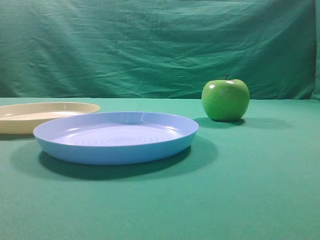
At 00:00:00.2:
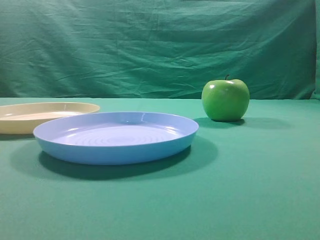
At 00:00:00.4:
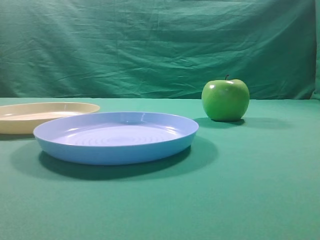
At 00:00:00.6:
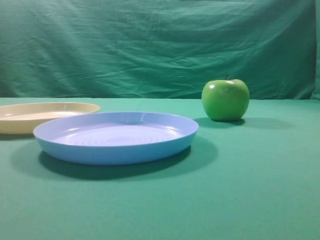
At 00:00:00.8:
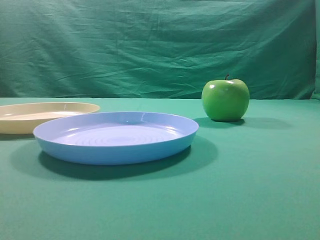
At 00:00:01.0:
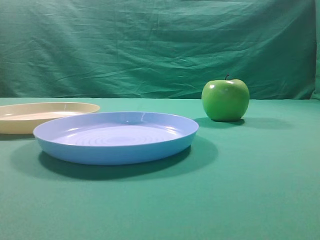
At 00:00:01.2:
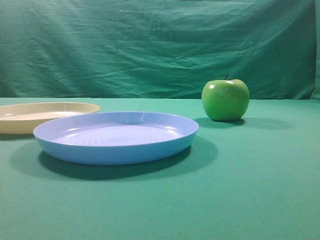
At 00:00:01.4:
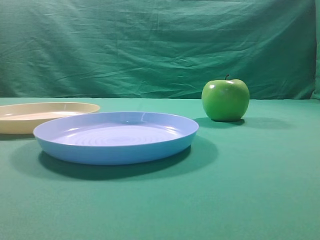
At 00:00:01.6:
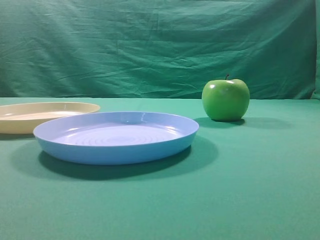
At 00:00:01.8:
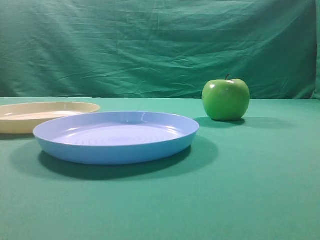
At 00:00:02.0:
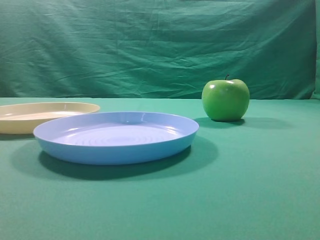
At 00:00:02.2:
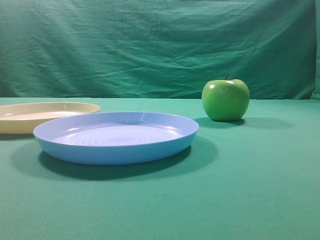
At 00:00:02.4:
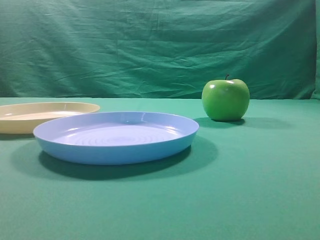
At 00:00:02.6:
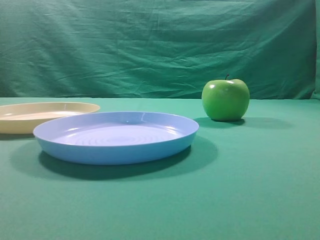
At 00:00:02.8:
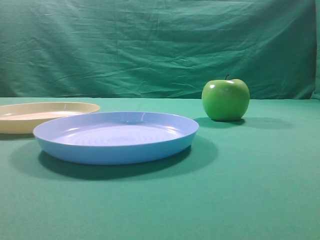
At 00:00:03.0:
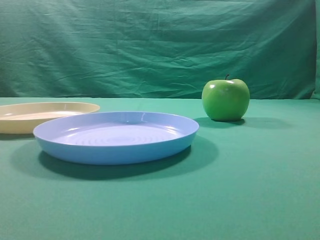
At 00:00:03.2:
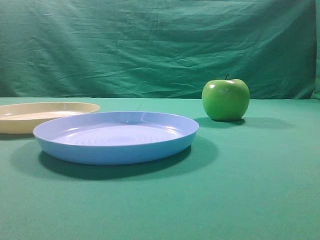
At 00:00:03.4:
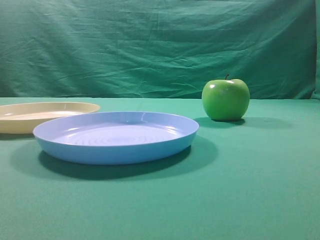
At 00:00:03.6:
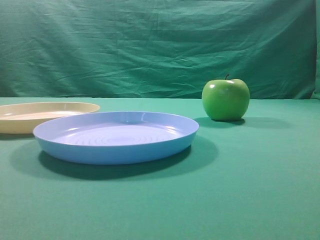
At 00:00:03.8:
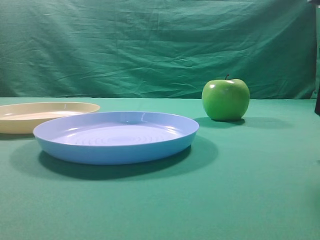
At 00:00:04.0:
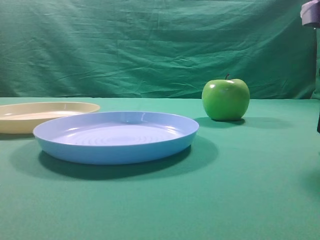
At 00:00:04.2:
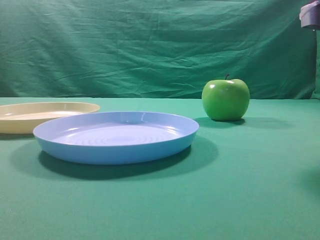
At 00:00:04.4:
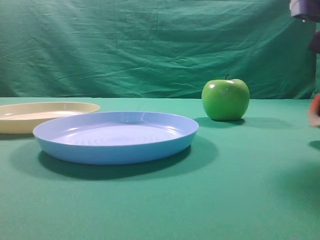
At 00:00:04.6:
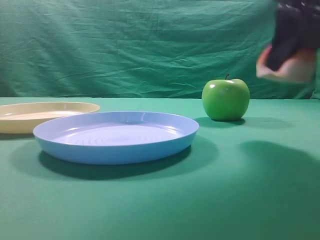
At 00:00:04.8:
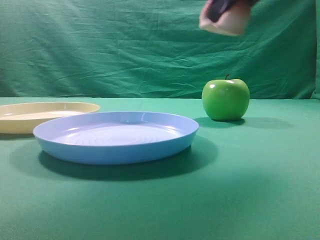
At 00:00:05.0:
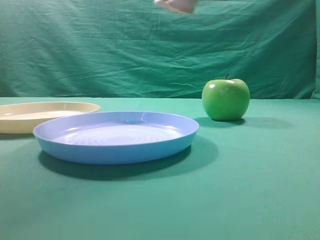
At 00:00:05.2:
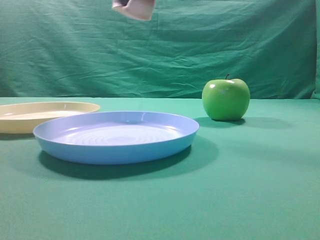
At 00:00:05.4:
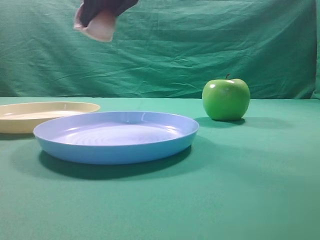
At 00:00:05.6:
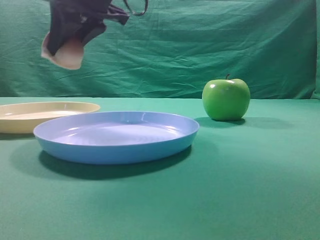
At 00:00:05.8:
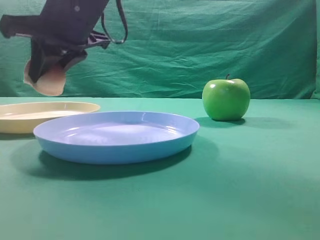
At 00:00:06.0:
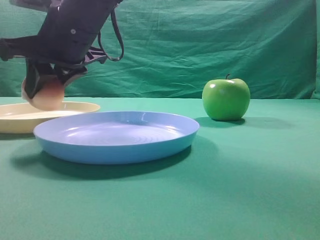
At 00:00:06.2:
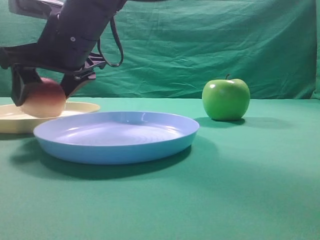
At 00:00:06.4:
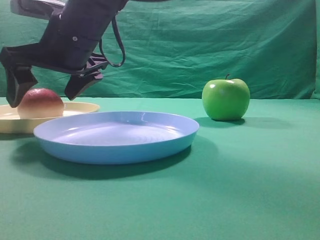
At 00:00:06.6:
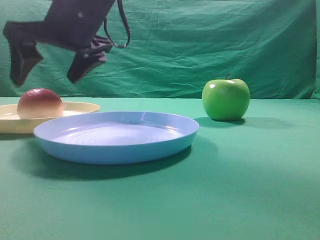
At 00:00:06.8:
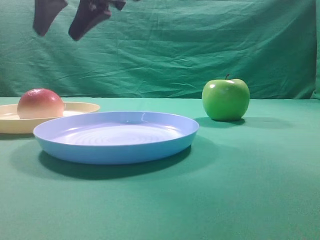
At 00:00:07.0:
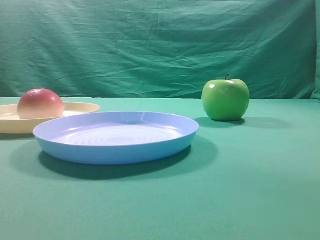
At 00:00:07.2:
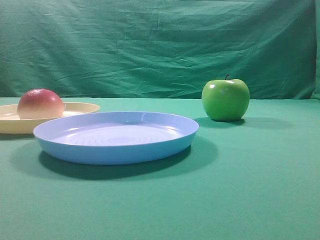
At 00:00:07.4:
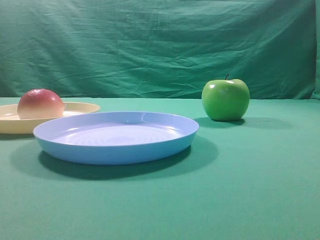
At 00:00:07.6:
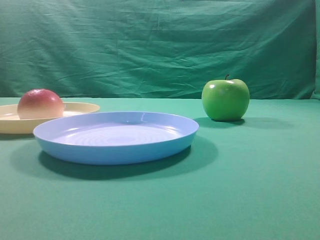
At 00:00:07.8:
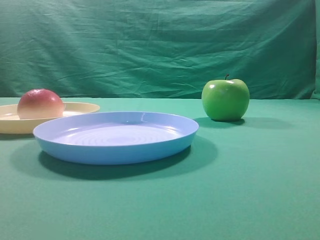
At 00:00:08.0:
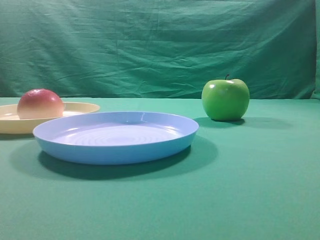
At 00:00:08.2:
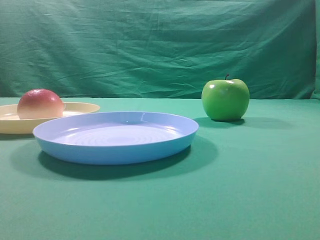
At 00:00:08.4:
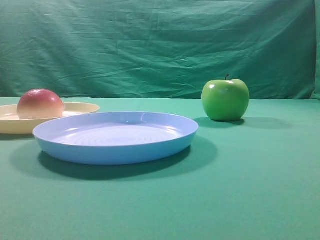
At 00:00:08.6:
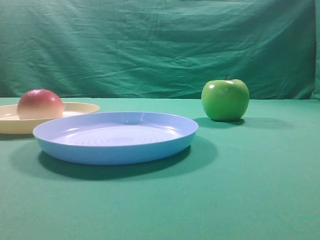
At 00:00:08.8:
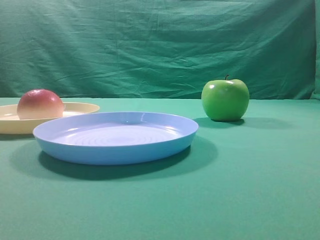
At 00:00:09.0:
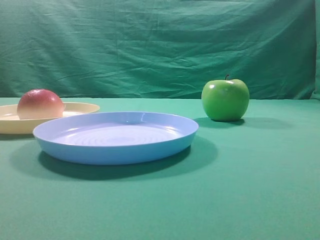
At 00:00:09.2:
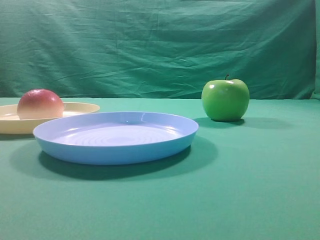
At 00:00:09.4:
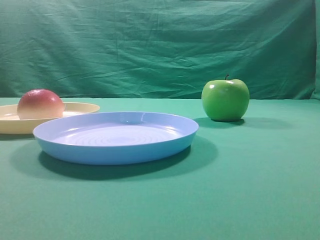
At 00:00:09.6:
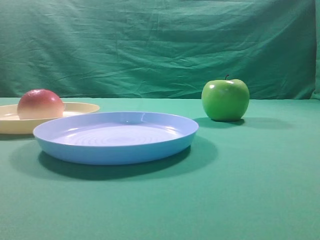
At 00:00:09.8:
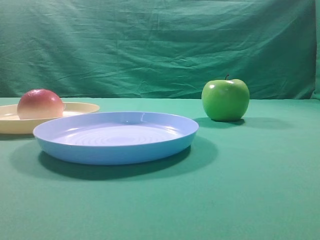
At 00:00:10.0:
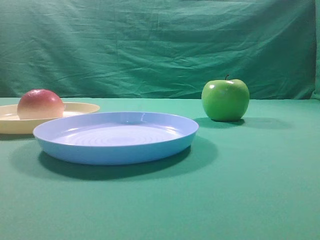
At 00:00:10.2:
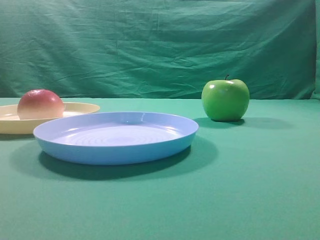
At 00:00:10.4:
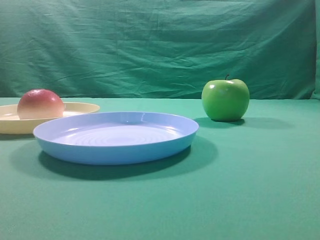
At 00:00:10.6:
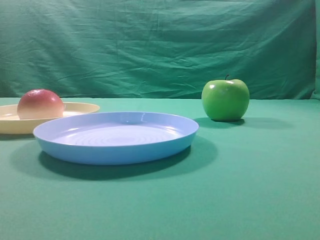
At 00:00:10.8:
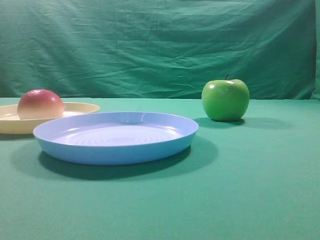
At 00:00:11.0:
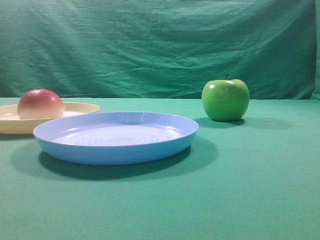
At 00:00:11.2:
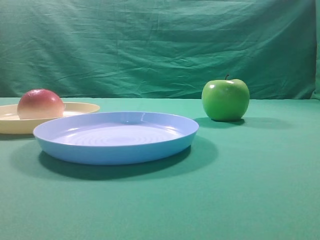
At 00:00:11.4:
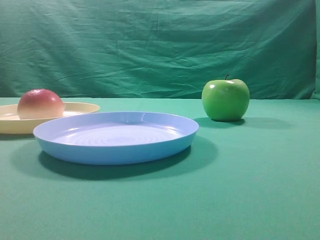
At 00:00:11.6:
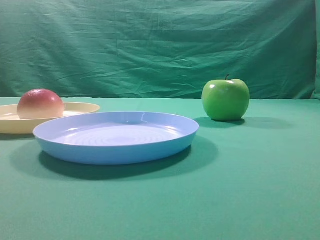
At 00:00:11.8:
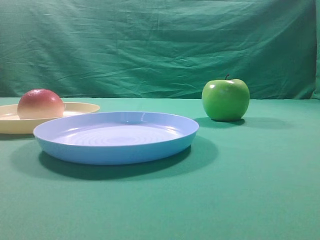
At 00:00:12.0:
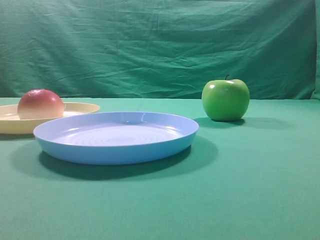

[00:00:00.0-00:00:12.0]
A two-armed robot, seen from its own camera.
Step, 00:00:04.6 to 00:00:06.6: Place the picked object on the yellow plate.

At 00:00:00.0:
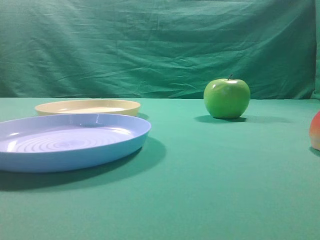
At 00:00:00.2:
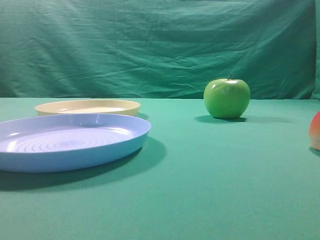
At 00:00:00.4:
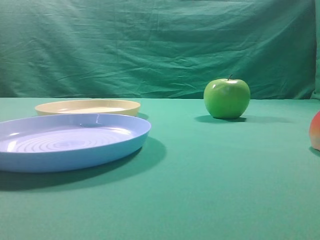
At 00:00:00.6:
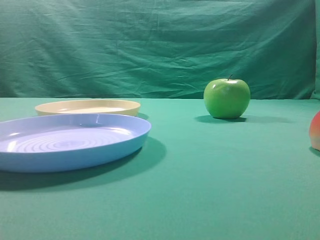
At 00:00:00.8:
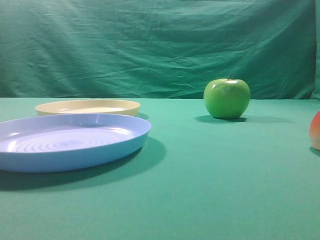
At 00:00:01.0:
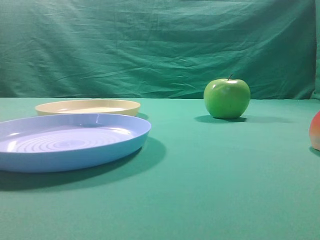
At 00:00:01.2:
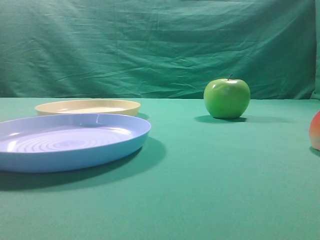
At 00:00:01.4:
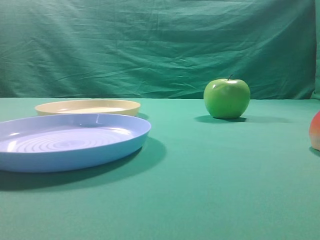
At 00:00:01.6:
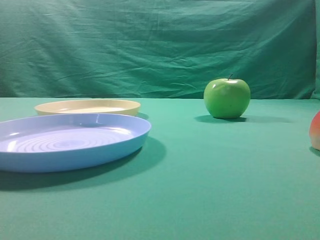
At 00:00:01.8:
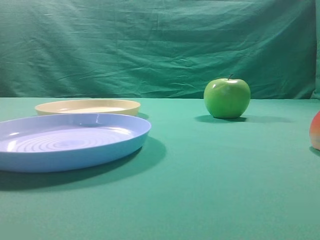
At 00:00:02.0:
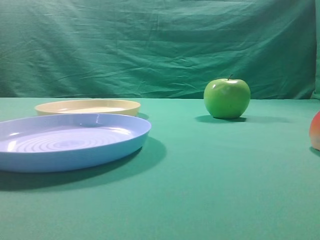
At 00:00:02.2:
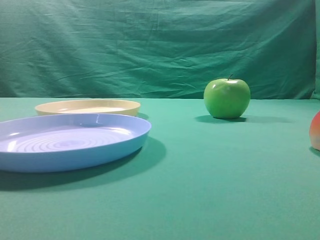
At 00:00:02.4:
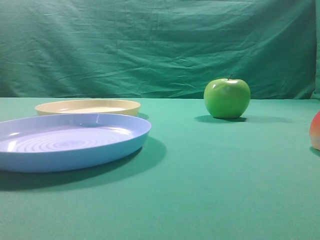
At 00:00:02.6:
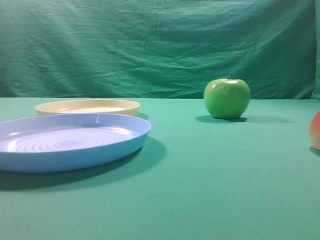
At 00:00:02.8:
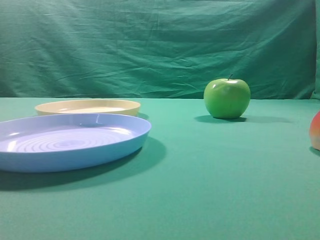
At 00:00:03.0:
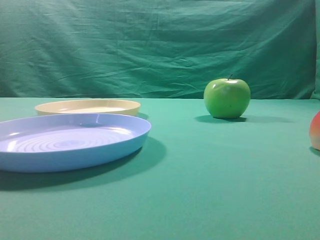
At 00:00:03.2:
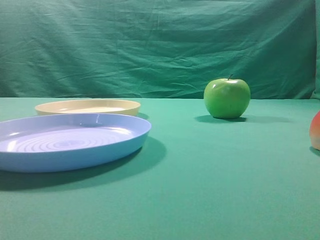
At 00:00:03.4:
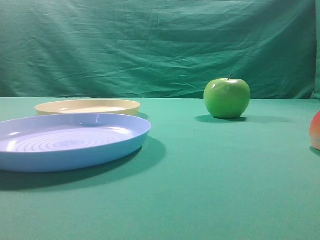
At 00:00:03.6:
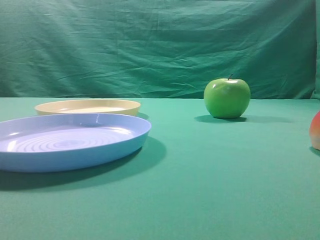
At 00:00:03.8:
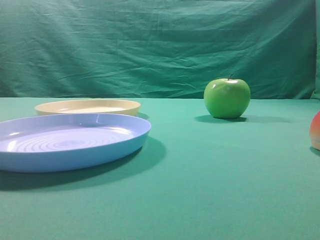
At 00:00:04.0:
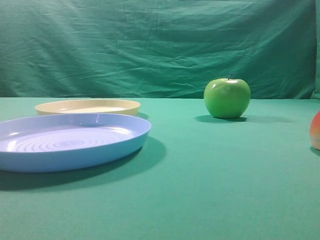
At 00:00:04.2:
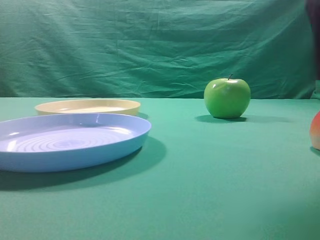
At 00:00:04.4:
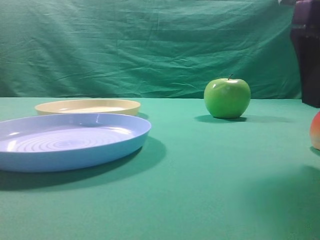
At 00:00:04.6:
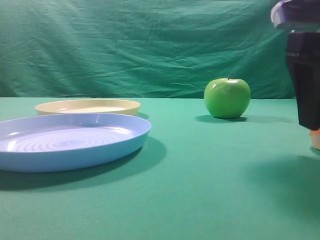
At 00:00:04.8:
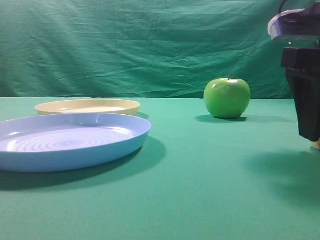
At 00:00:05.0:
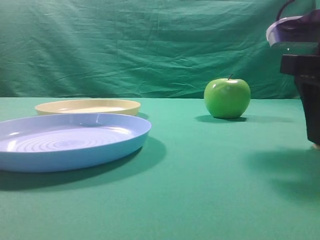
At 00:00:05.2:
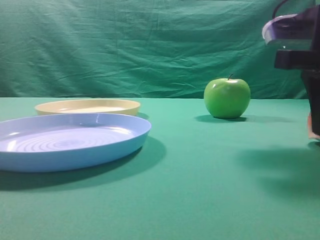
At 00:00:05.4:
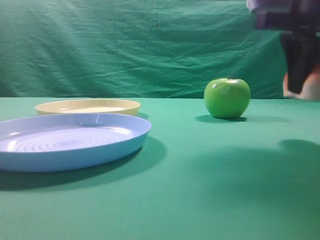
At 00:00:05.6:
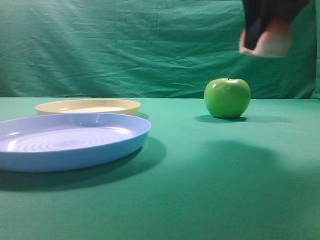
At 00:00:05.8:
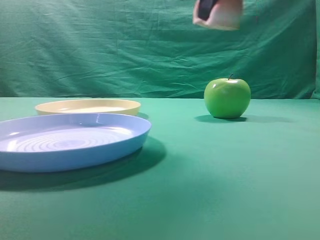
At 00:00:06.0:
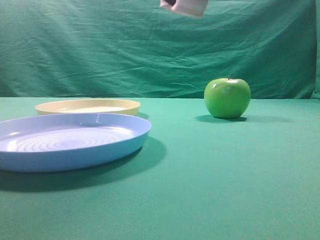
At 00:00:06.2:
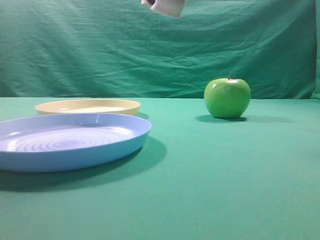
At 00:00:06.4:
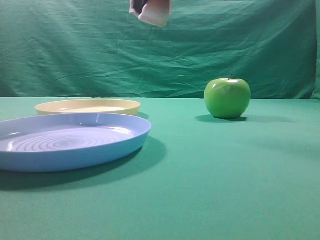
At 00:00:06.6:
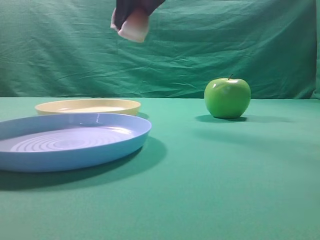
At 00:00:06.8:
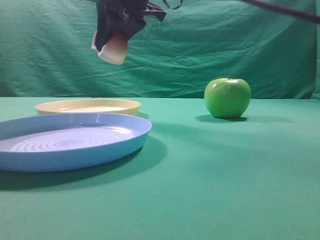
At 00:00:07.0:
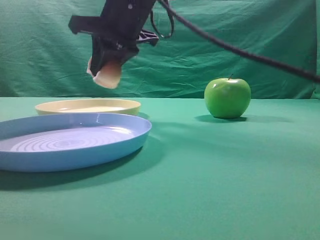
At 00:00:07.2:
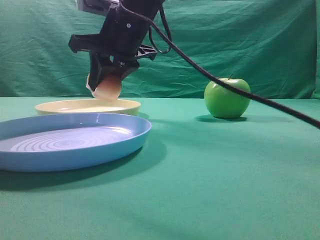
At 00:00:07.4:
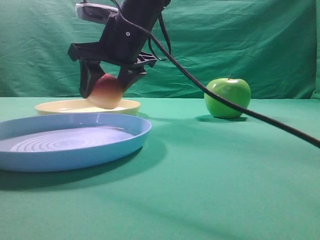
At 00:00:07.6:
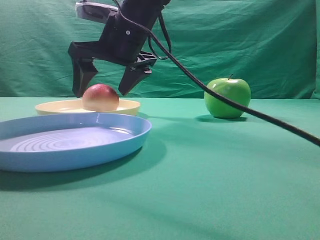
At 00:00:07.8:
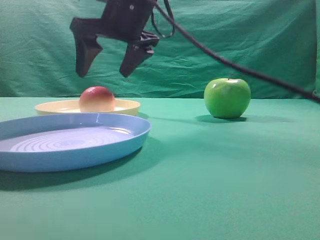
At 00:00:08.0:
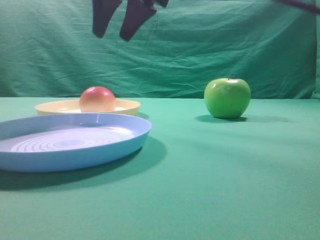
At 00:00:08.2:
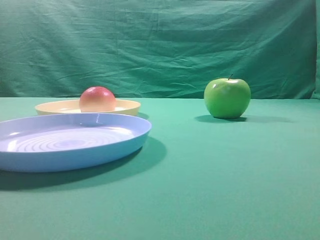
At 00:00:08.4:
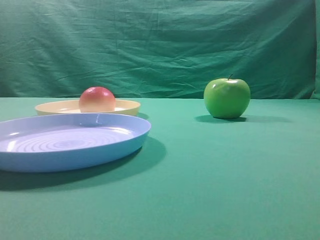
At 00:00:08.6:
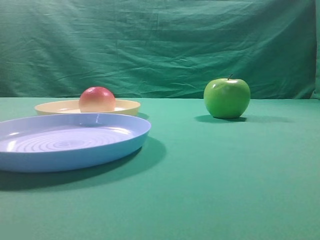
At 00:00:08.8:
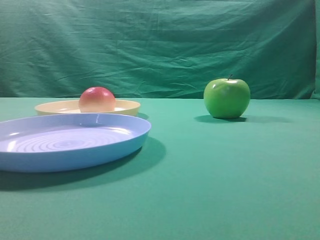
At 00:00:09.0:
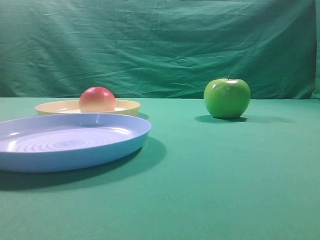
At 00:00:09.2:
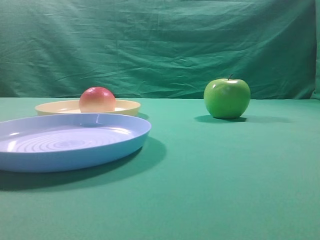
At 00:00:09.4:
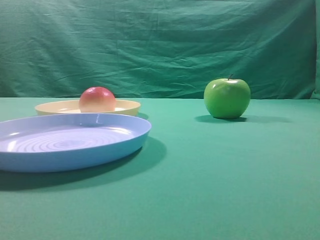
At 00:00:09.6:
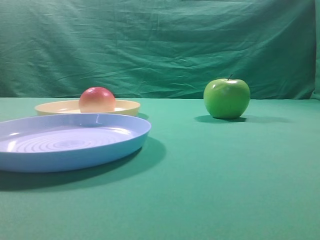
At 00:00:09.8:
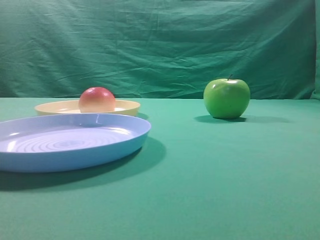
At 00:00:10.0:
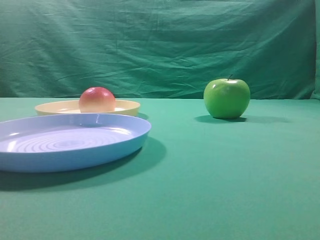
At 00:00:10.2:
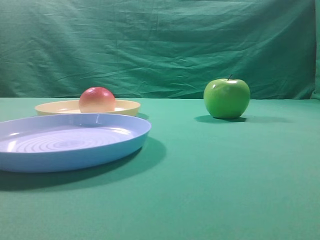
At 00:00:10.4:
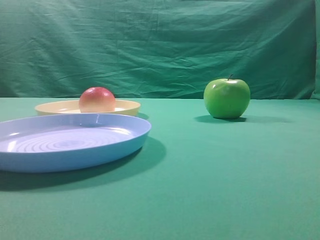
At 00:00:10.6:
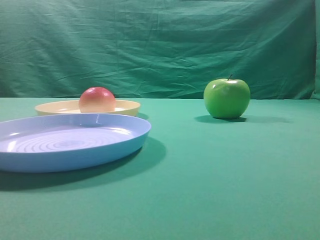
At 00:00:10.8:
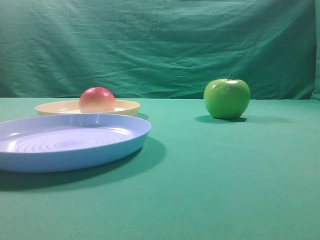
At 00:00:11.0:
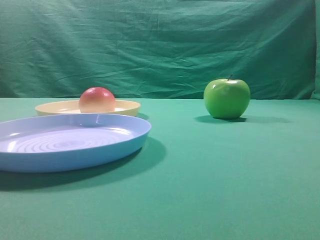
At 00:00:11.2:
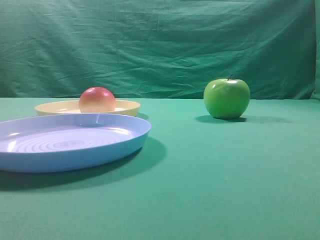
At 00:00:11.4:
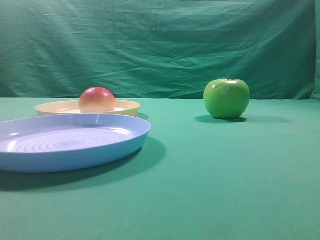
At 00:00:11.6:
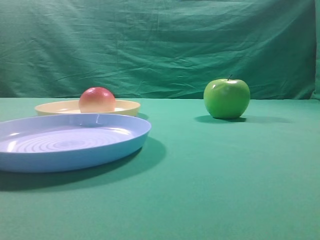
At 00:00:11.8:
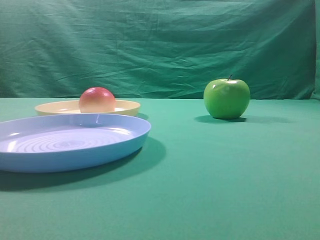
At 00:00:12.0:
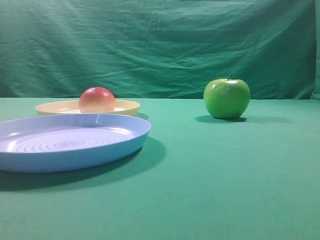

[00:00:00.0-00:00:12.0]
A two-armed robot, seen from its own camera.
Step, 00:00:05.6 to 00:00:07.8: Place the picked object on the yellow plate.
